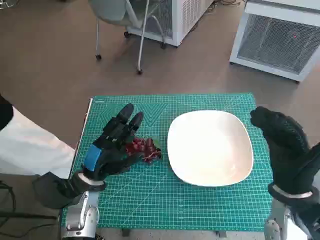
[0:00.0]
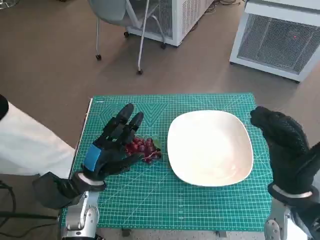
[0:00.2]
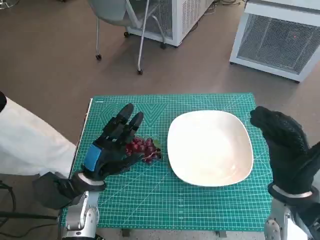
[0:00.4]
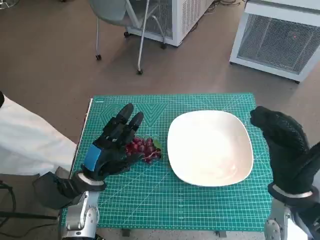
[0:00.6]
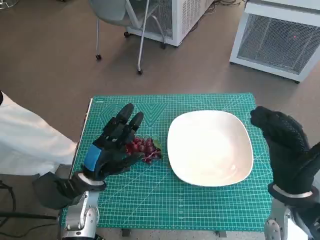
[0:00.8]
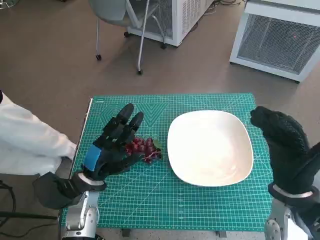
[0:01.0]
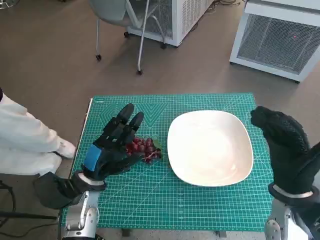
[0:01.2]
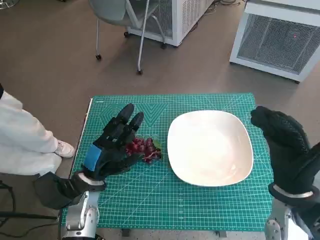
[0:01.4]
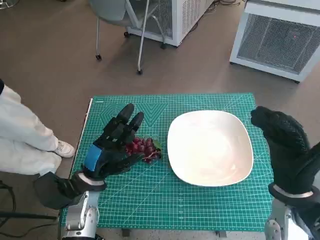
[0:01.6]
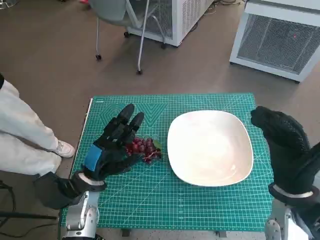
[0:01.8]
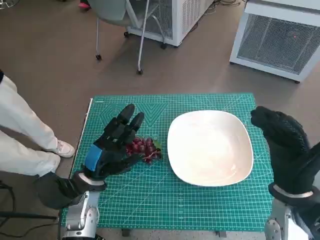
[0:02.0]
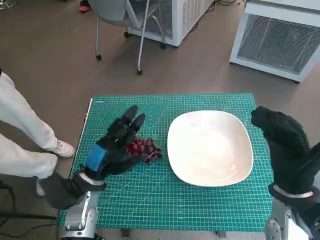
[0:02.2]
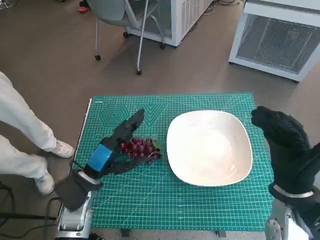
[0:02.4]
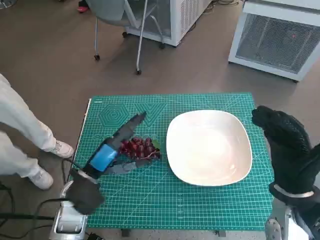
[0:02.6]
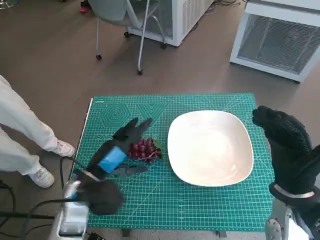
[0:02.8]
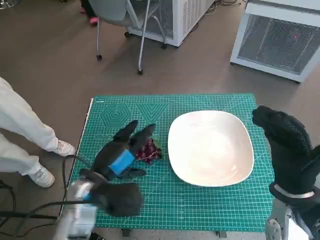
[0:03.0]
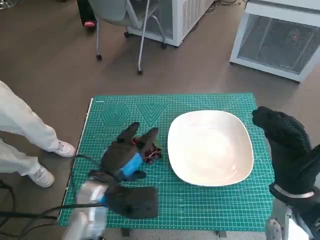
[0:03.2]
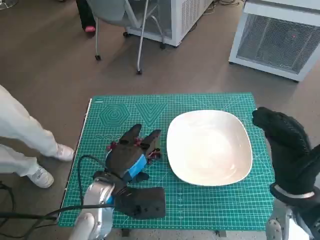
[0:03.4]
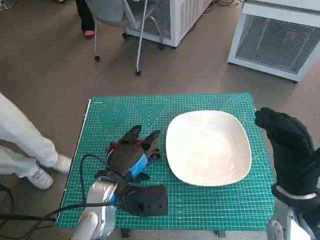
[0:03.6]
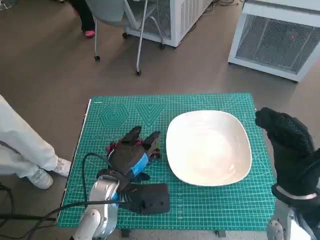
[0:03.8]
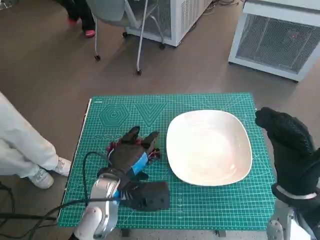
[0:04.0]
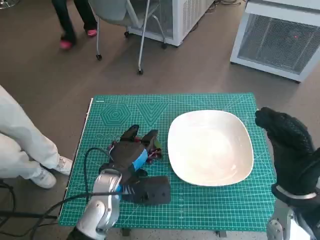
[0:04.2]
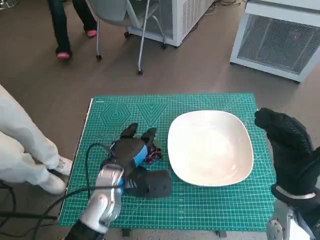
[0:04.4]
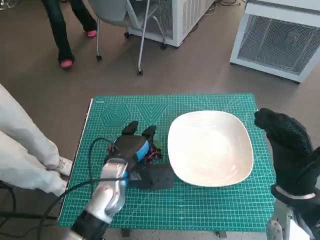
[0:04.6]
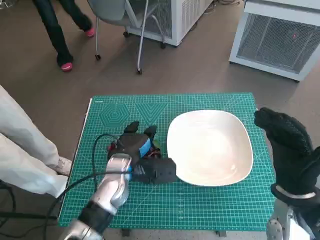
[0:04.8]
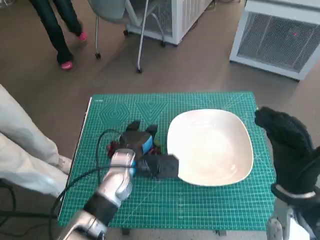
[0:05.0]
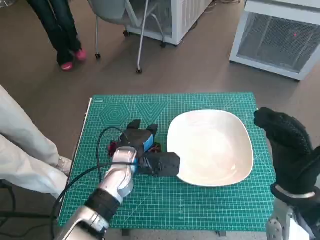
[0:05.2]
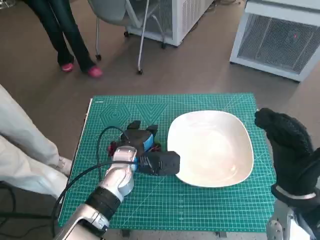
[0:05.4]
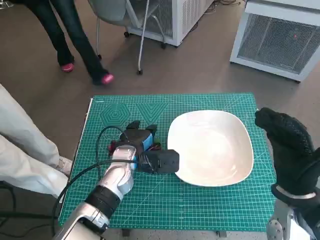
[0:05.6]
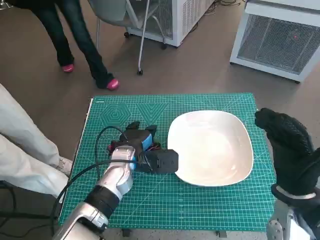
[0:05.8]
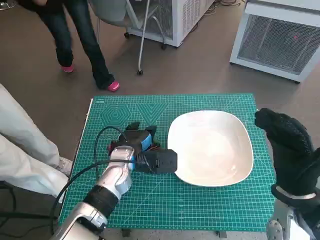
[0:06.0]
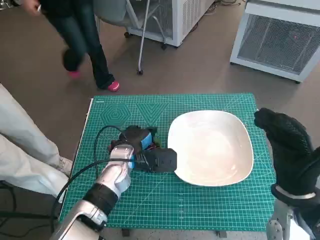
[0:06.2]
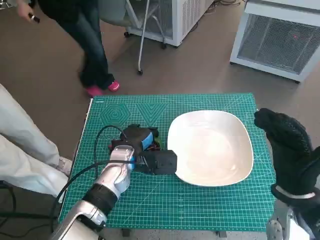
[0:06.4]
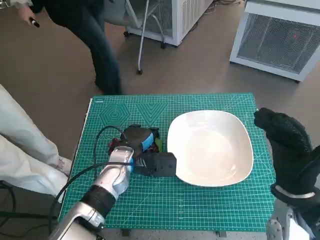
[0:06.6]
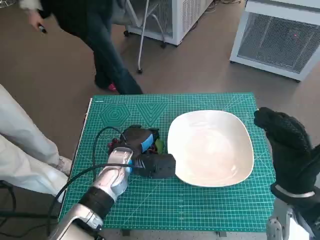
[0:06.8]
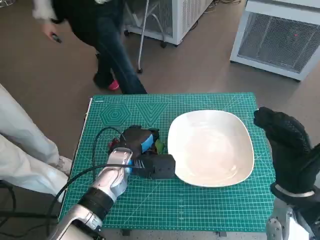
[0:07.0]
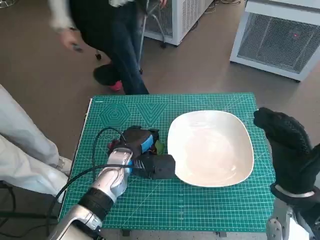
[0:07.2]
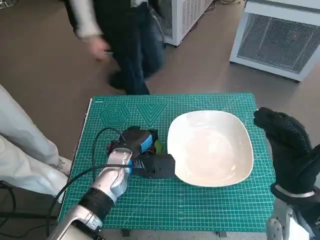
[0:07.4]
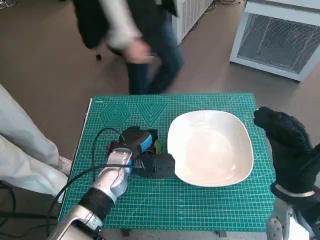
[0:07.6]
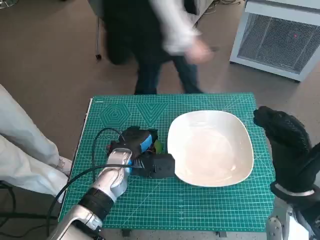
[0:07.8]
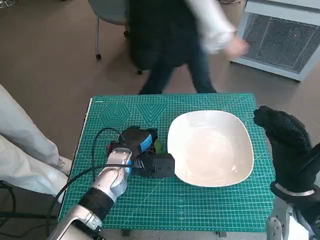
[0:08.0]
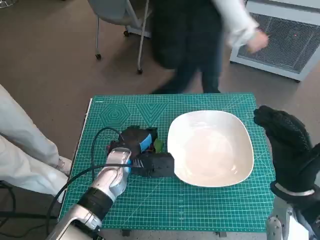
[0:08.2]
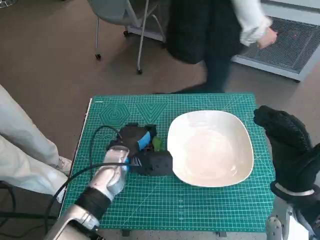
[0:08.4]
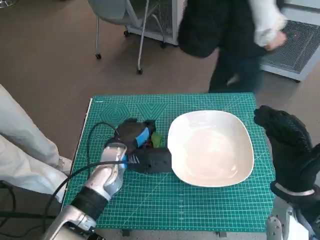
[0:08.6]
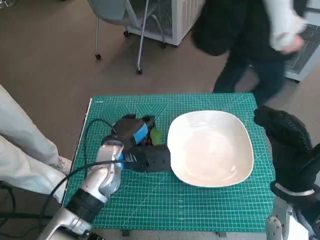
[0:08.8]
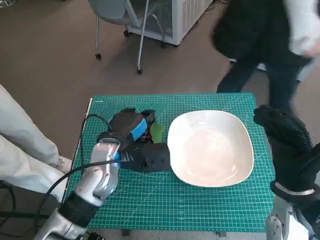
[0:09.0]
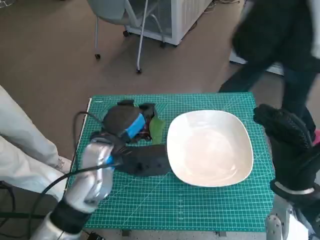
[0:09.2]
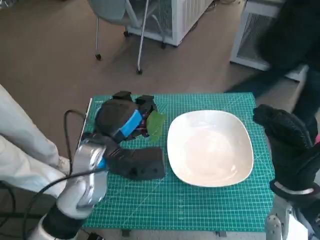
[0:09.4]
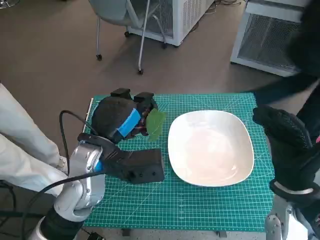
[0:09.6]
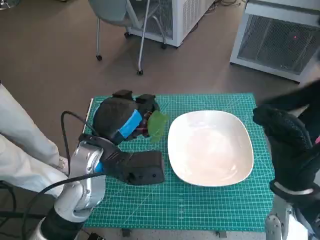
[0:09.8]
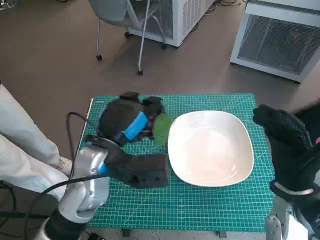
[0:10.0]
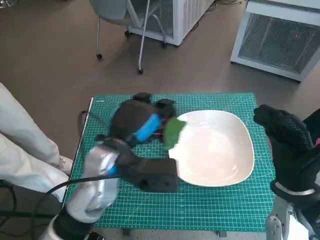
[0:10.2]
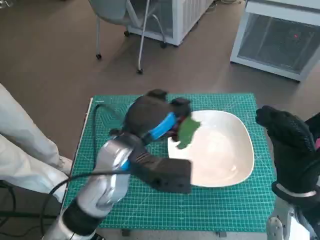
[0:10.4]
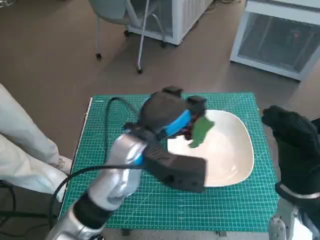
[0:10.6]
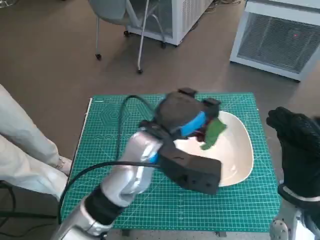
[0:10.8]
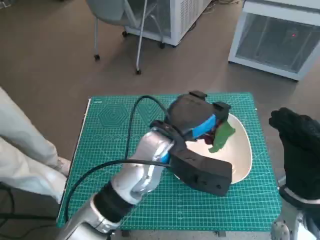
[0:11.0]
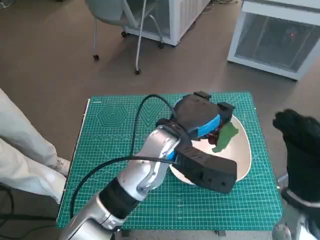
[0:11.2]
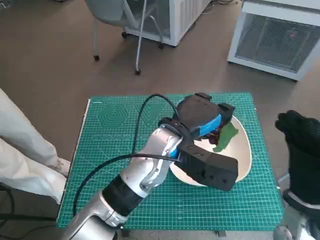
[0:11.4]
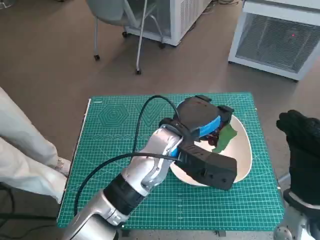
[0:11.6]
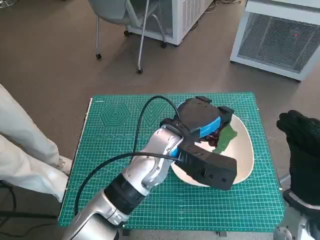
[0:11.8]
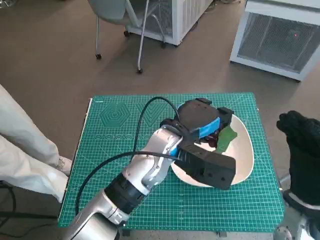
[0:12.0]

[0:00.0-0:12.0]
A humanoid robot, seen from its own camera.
Task of the whole recording: Pick up the grapes and put them on the plate.
Step, 0:00.0 to 0:08.0: Grasp the grapes with left hand.
0:03.0 to 0:04.4: The left hand moves approximately 5 cm.
0:04.4 to 0:06.0: The left hand moves forward, roughly 5 cm.
0:06.0 to 0:07.6: The hands move only a little.
0:07.6 to 0:09.0: The left hand goes about 5 cm upward.
0:09.0 to 0:10.4: The left hand goes about 5 cm upward.
0:10.4 to 0:12.0: The left hand moves to the right, roughly 10 cm.

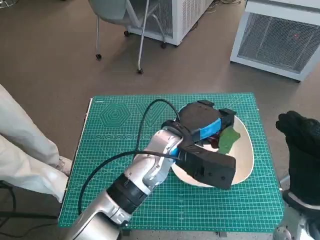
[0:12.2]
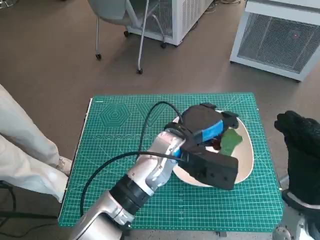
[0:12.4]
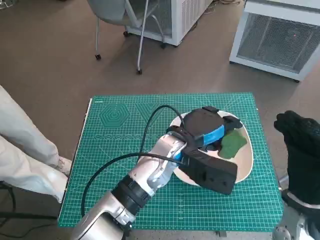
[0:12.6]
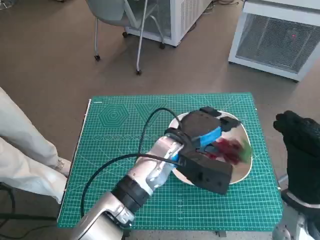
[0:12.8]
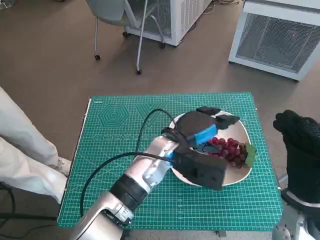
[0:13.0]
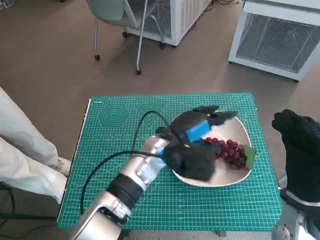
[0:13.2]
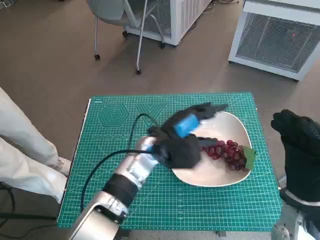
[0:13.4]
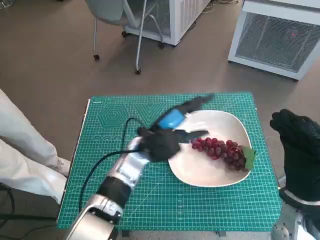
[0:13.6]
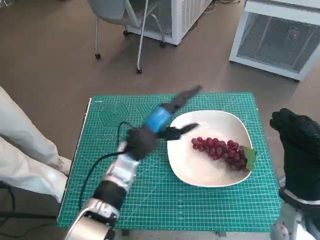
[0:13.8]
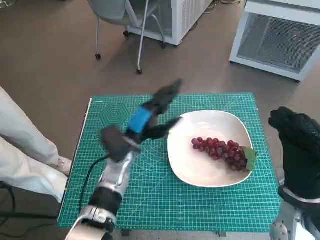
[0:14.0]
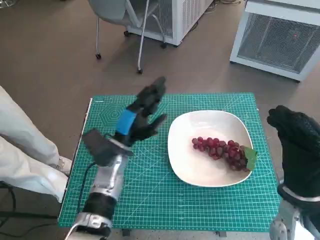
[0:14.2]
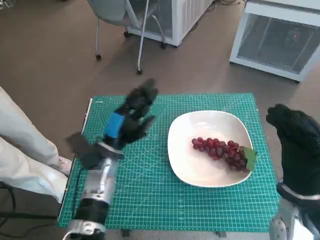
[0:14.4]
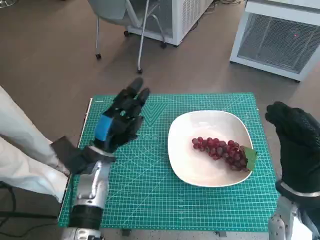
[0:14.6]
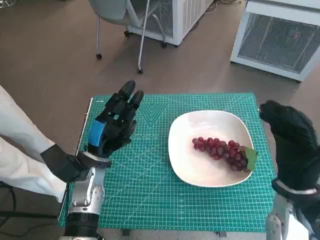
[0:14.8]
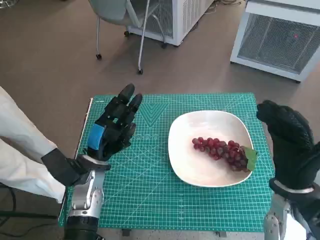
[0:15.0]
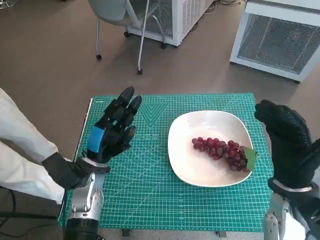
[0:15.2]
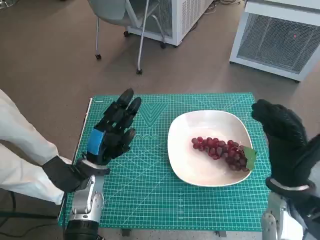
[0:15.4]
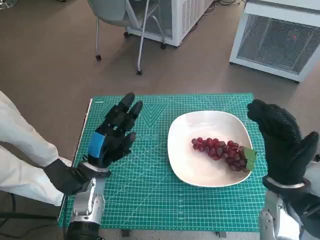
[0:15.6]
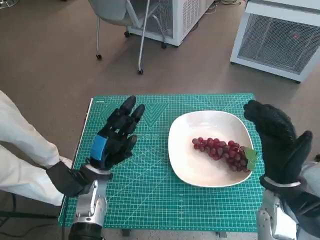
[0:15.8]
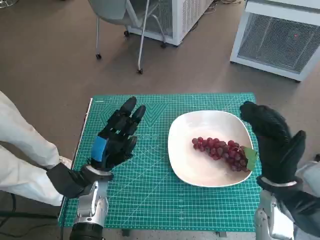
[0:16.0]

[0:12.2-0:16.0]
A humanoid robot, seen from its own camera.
Task of the whole recording: Pick up the grapes and put them on the plate.
0:12.2 to 0:13.4: The left hand shifts by about 5 cm.
0:13.4 to 0:14.8: The left hand shifts about 15 cm to the left.
0:14.8 to 0:16.0: The hands stay close to where they were, moving slightly.

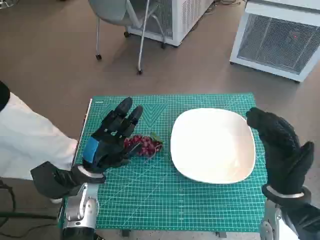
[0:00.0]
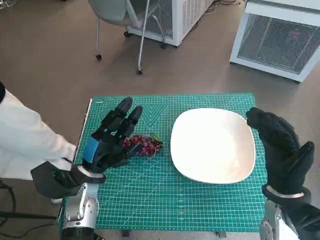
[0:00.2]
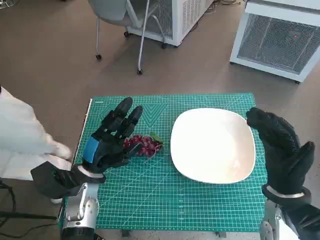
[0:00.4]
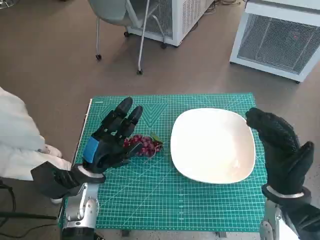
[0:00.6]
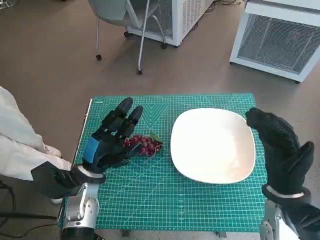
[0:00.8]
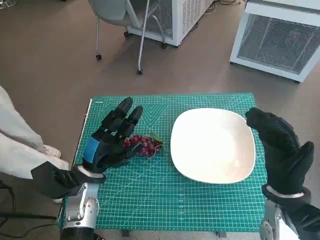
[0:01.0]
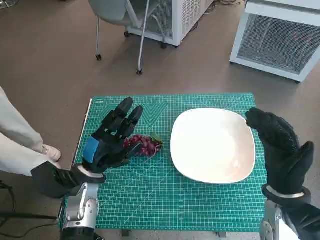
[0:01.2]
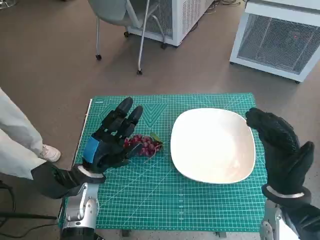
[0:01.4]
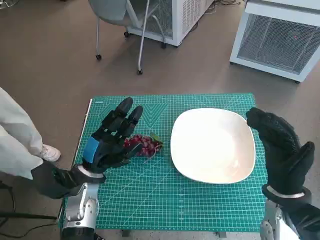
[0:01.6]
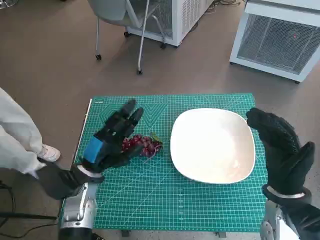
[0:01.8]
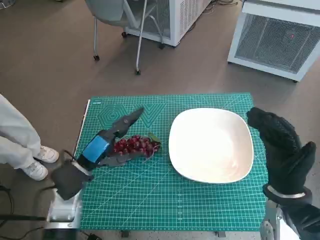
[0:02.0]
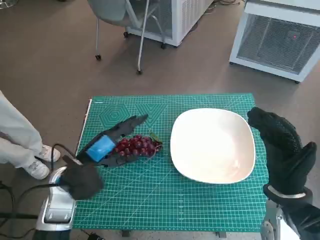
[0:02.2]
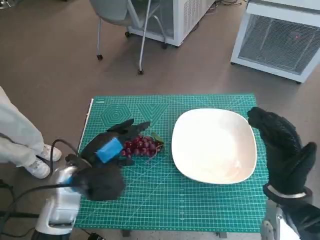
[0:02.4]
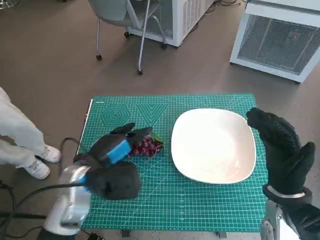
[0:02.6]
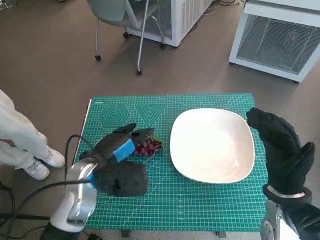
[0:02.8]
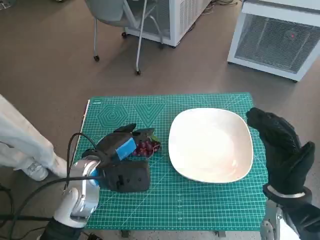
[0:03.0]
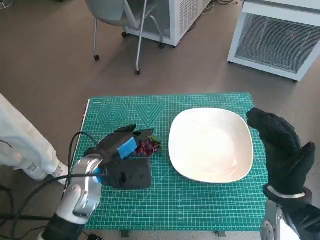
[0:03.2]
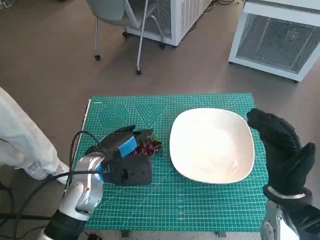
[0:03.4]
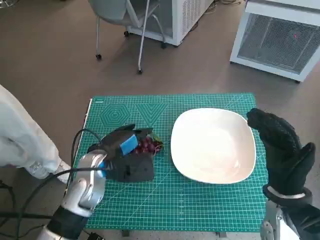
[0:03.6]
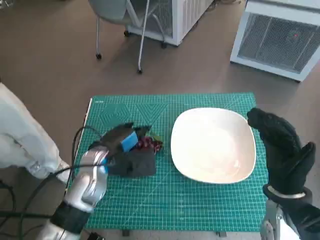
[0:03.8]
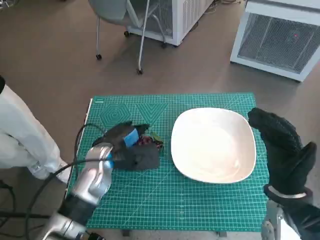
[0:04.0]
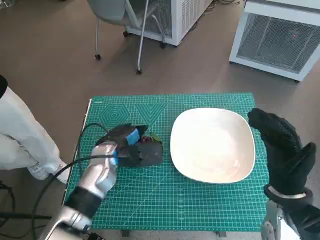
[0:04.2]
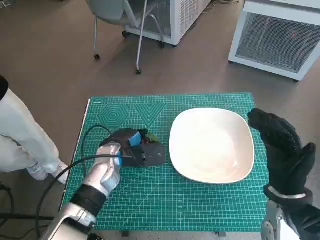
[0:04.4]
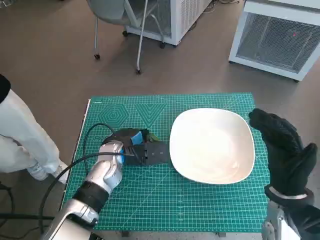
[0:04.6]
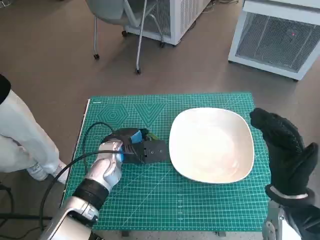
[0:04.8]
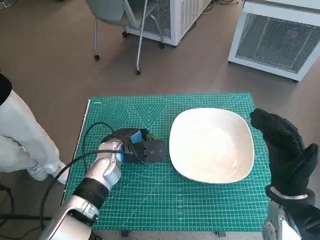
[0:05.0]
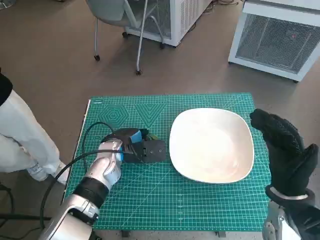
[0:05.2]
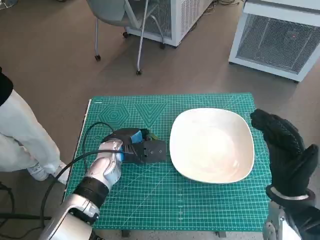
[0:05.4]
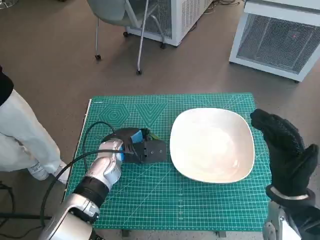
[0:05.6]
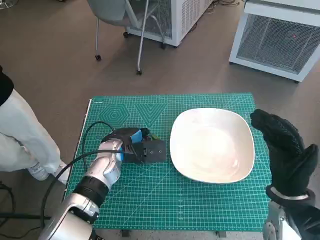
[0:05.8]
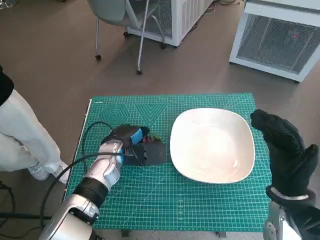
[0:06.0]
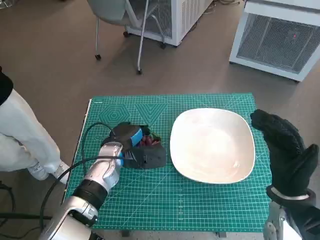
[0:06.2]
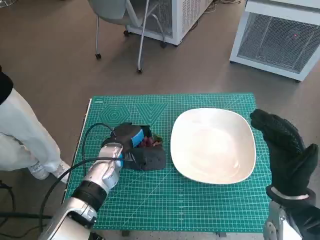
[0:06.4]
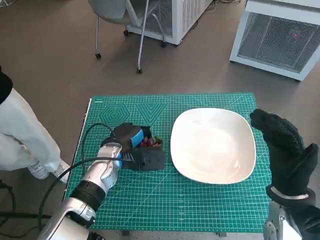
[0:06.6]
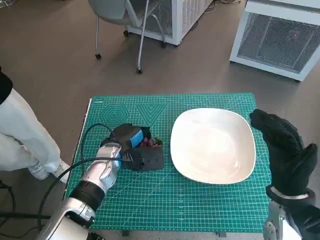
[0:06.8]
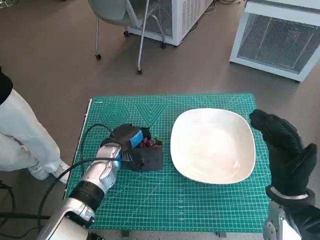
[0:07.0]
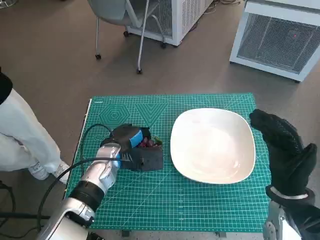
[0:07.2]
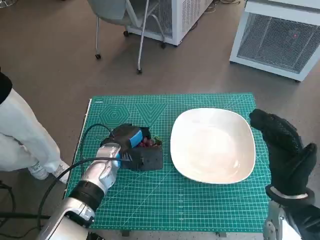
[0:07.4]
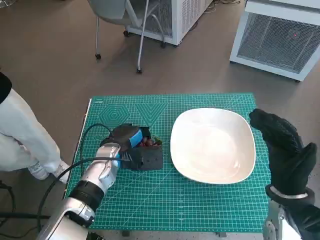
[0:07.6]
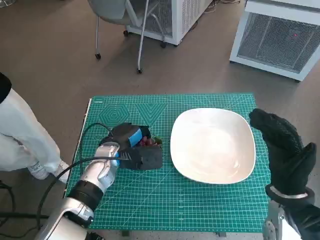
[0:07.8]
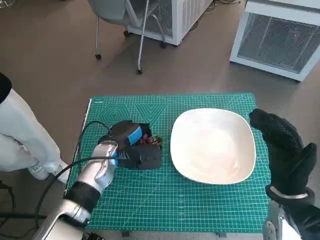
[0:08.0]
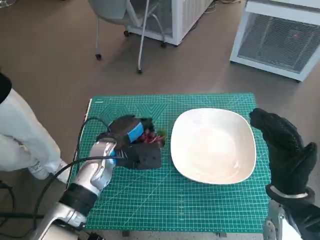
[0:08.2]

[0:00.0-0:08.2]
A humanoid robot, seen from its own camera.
Task of the whole recording: Pick up the grapes and put them on the plate.
Step, 0:00.0 to 0:06.4: Grasp the grapes with left hand.
0:01.6 to 0:03.2: The left hand shifts some 5 cm upward.
0:03.2 to 0:05.0: The left hand goes some 5 cm forward.
0:05.0 to 0:08.2: There are only small adjustments of the hands.
